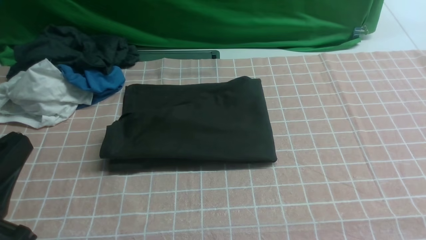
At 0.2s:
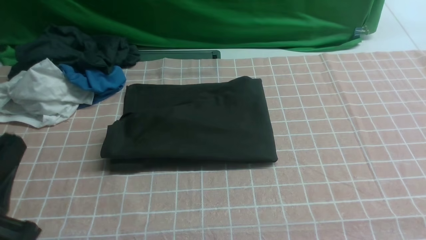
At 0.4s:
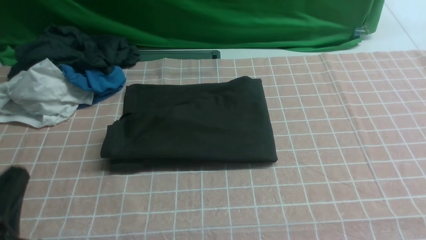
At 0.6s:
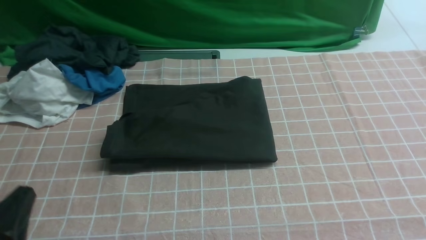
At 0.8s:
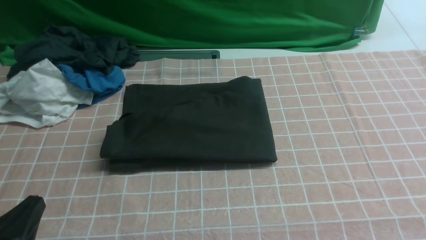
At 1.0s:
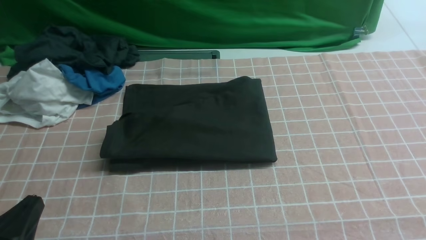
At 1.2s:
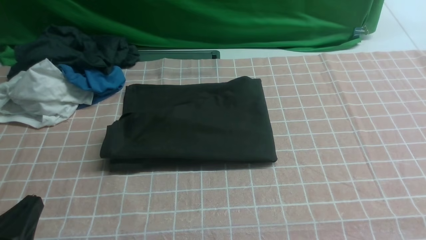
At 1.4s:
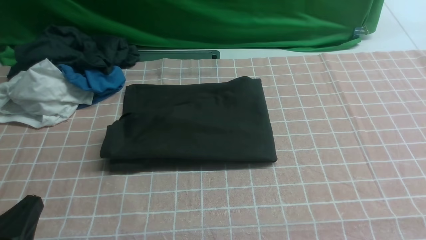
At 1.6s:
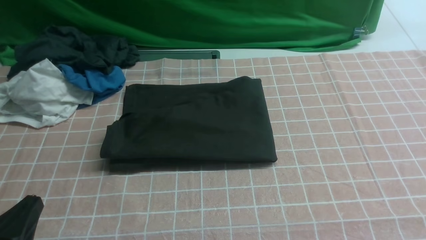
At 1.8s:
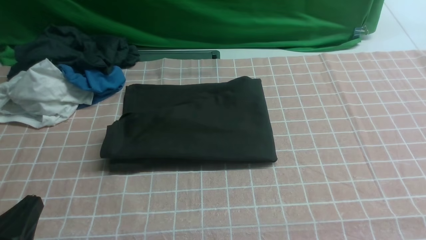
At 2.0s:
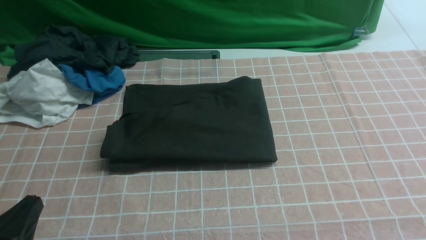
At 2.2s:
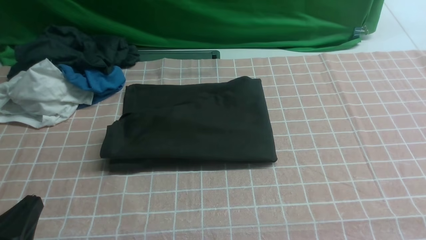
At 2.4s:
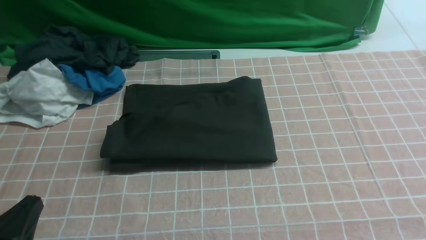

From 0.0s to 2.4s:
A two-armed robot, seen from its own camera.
From 0.0s to 1.2s: The left gripper moves downward, about 10 cm.
From 1.2s to 2.4s: Both grippers stay about where they are.

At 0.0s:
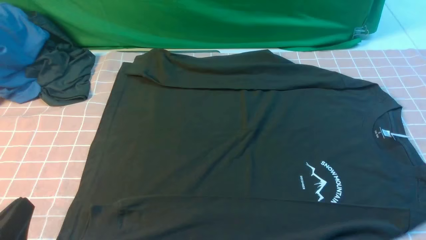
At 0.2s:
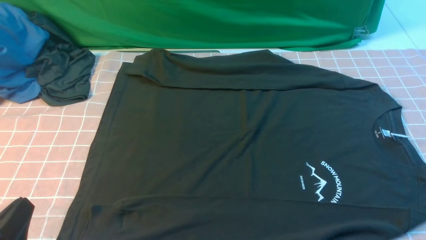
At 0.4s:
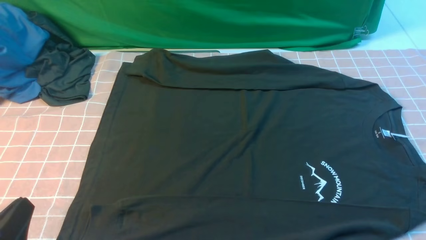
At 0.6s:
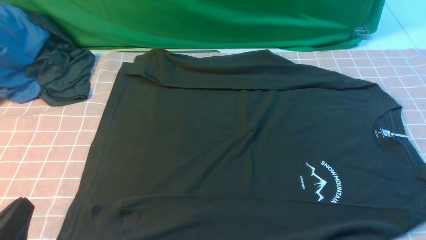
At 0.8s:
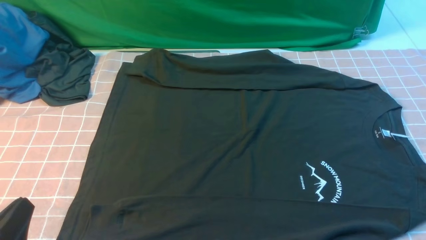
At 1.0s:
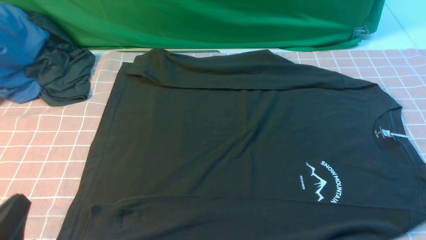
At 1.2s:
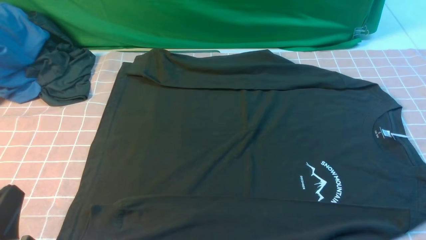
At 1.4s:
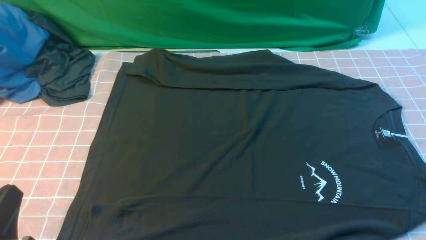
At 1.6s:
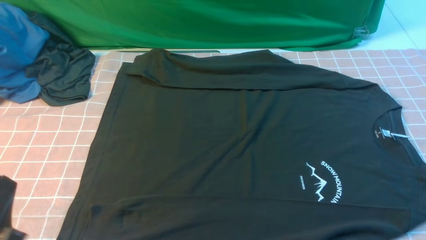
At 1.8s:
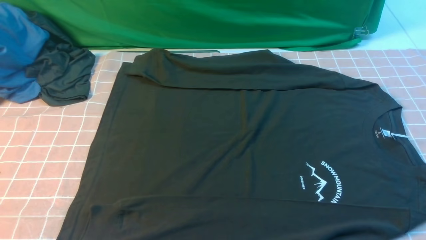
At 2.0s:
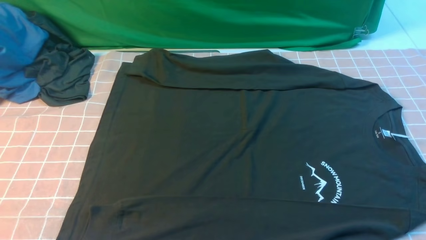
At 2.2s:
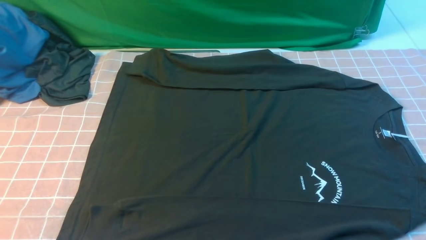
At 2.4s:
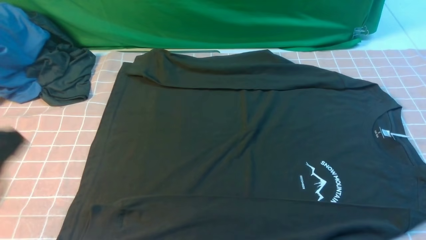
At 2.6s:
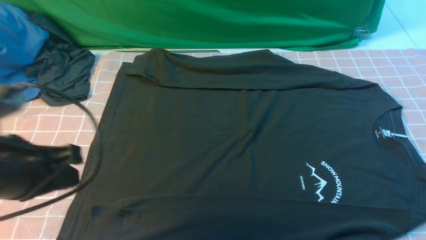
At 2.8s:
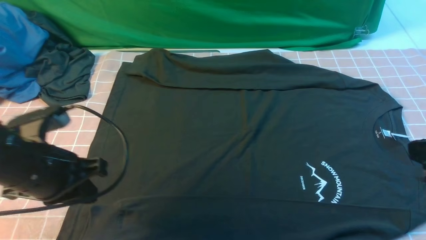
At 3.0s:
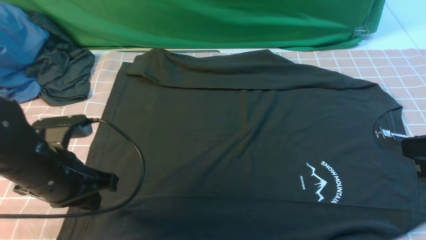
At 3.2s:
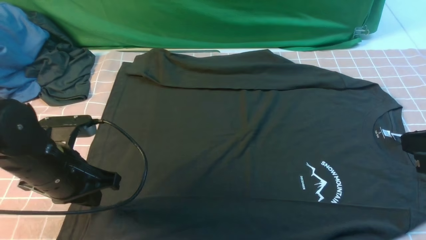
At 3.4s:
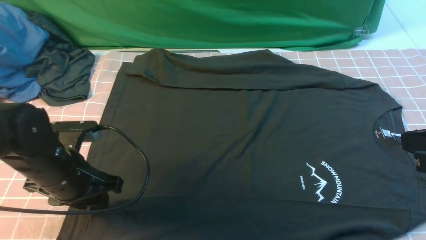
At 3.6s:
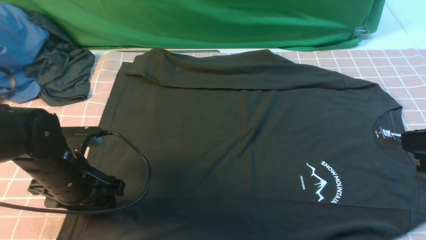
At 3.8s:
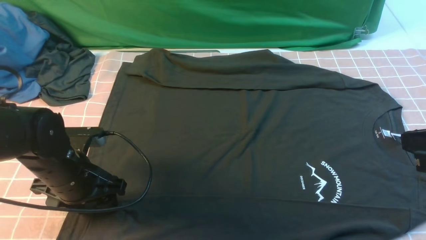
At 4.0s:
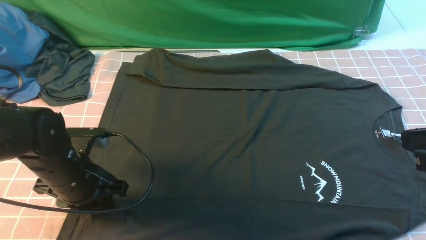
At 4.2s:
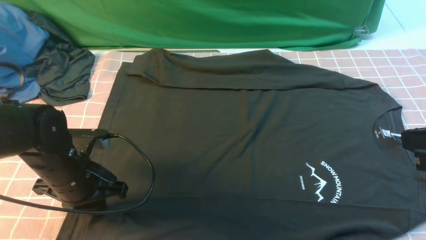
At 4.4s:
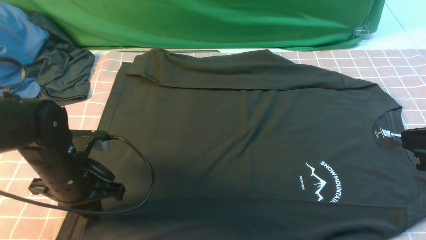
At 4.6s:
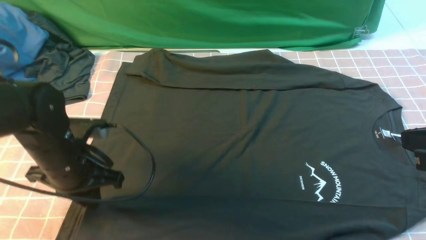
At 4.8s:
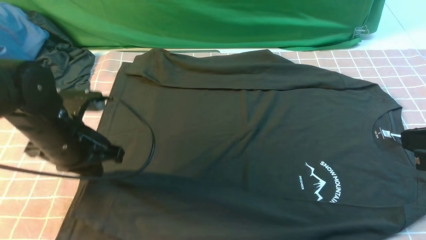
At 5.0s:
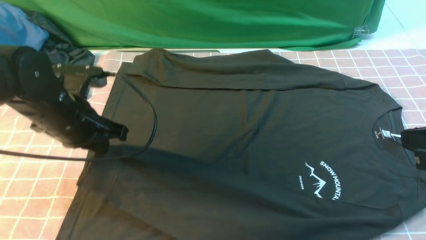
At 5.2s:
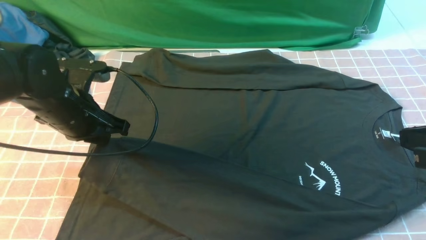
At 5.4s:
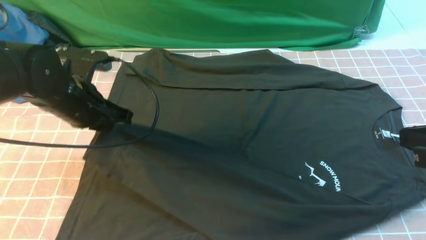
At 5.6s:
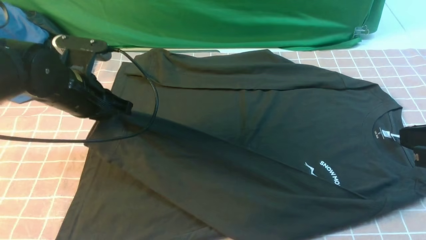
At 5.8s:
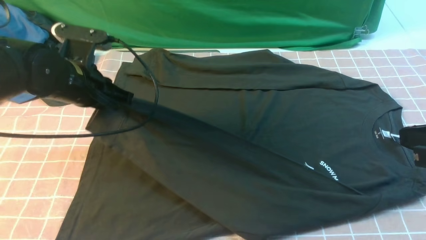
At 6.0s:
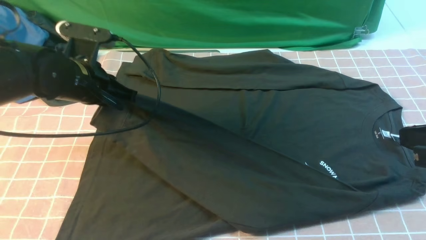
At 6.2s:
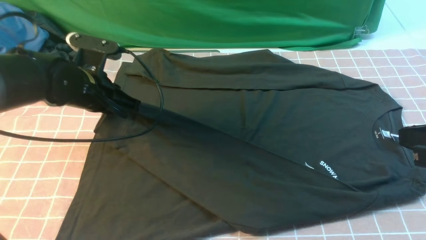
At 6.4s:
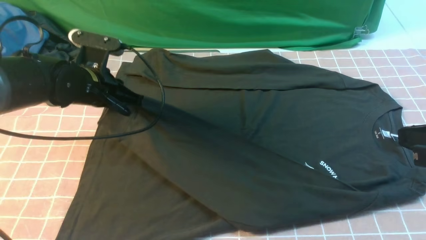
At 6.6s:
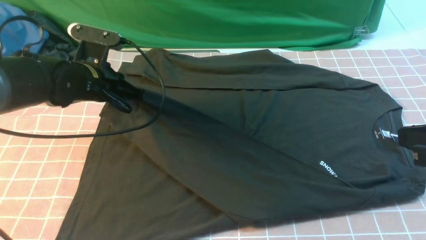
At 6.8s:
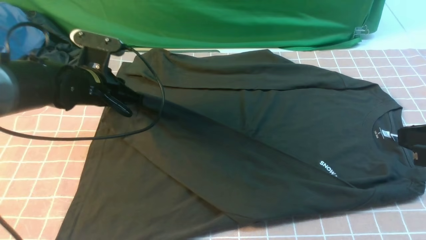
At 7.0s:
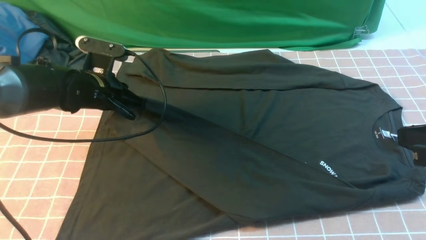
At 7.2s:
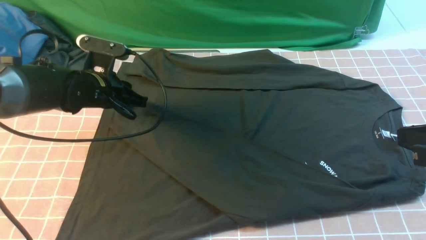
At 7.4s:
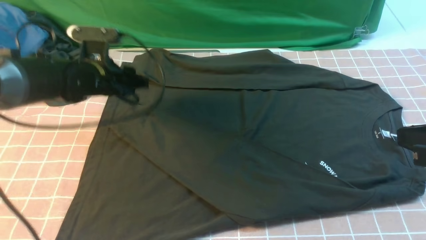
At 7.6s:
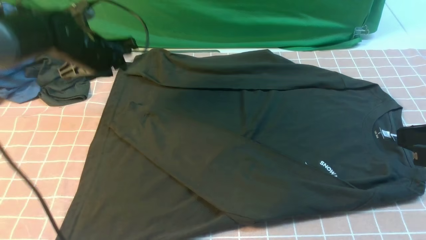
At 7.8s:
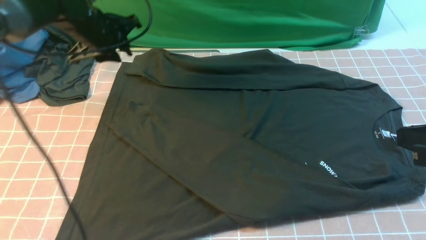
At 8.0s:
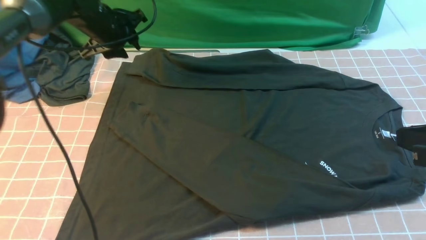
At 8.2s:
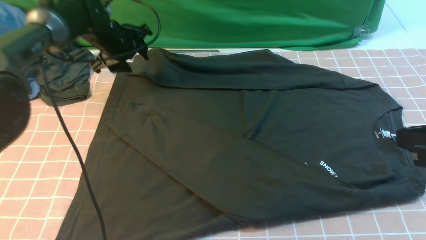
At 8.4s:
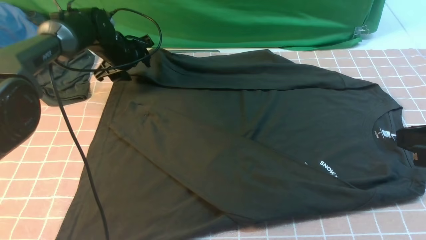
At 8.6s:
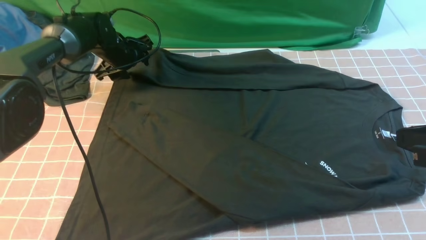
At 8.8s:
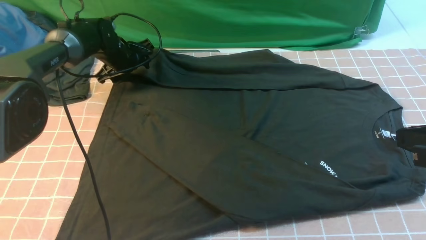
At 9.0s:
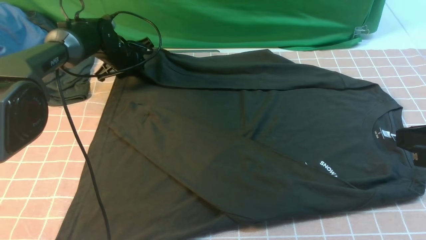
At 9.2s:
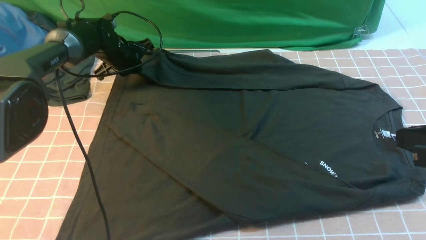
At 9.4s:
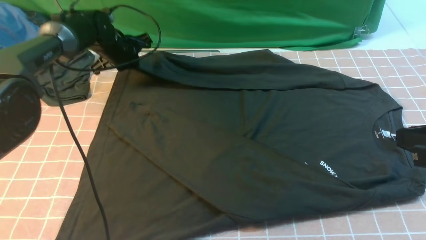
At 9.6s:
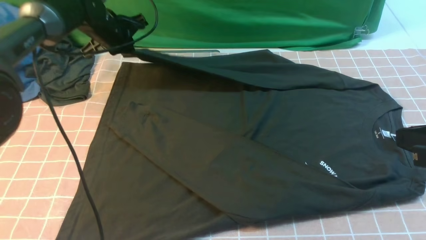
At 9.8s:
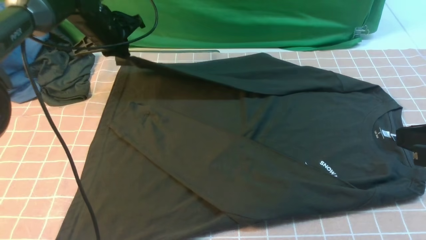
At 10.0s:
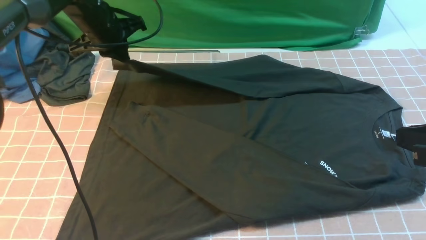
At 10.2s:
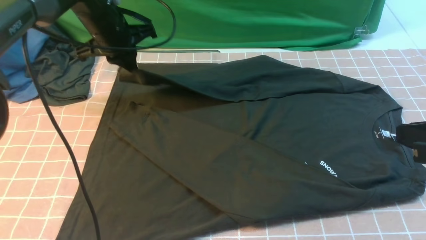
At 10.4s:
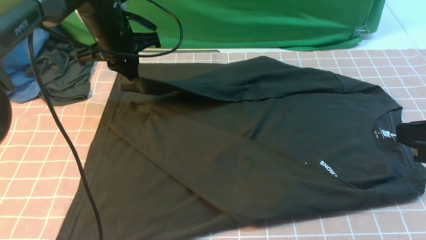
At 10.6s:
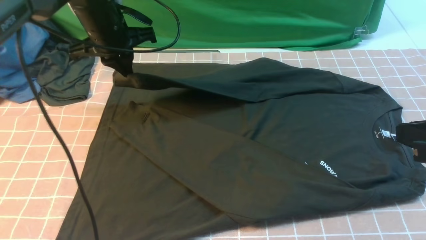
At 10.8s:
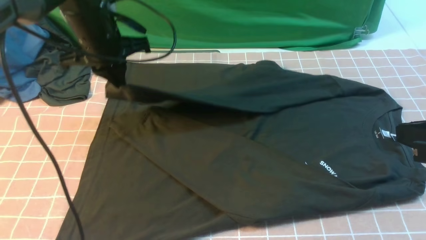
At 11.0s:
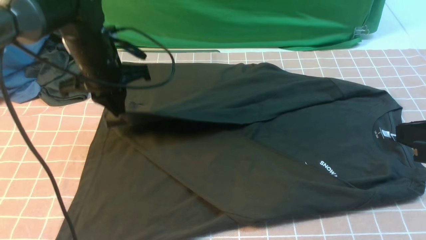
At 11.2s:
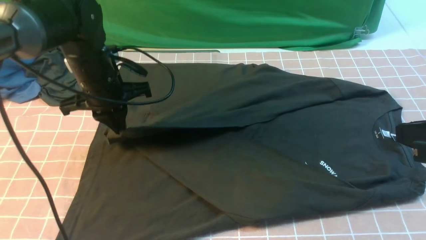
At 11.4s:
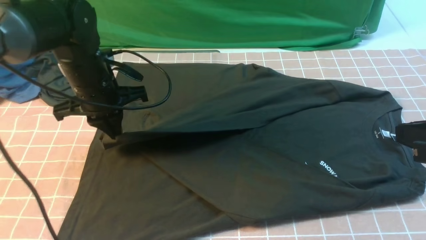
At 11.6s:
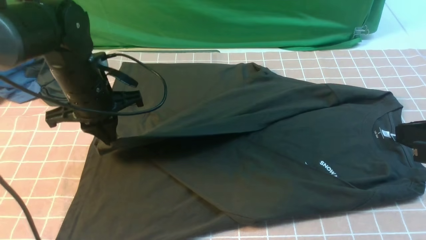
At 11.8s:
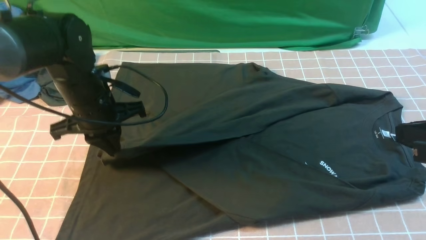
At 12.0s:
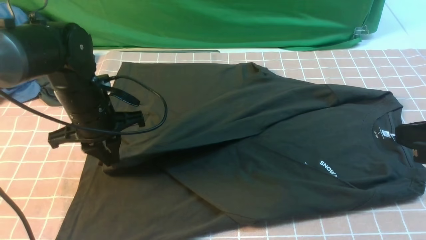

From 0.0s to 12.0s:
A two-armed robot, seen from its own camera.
Step, from 0.0s to 4.6s: use the left arm to clamp the cuff closest to it.
Step, from 4.8s to 7.4s: use the left arm to drag and place the cuff at the centered position on the left edge of the fabric.
Step, from 7.6s to 9.6s: use the left arm to clamp the cuff farthest from it.
From 1.6s to 3.0s: The right gripper moves upward and forward, roughly 15 cm, and closes up. The left gripper moves forward, about 15 cm.
From 3.0s to 4.4s: The left gripper moves about 5 cm, and opens and closes again.
From 4.4s to 6.0s: The left gripper heads forward and upward, covering some 10 cm.
From 6.0s to 7.6s: The left gripper moves forward, approximately 10 cm, and opens up.
From 7.6s to 9.0s: The left gripper heads forward and downward, covering some 15 cm, and opens, then closes once more.
From 9.0s to 10.4s: The left gripper shifts about 15 cm upward and backward, and closes its fingers.
From 10.4s to 12.0s: The left gripper goes about 15 cm backward and downward.

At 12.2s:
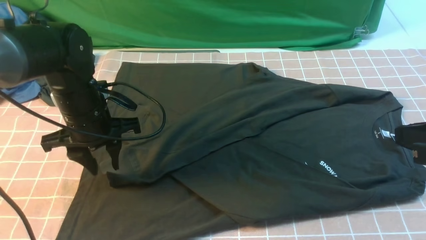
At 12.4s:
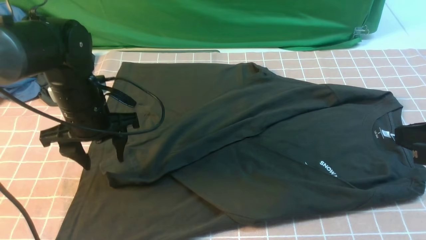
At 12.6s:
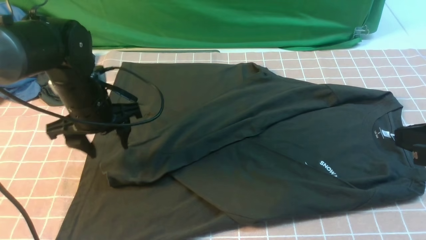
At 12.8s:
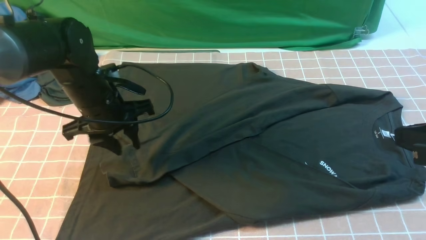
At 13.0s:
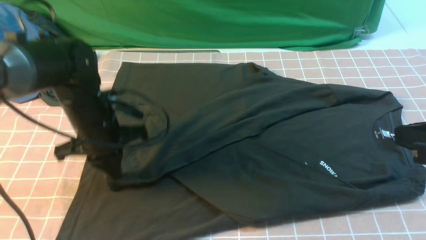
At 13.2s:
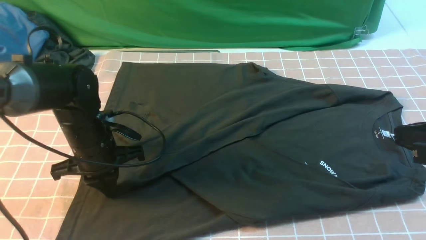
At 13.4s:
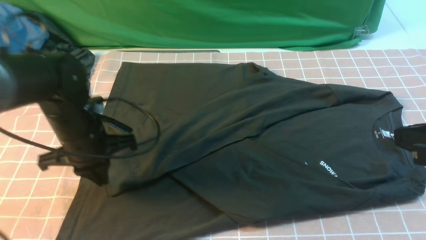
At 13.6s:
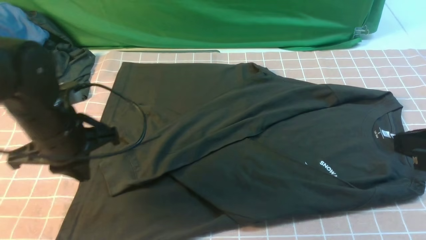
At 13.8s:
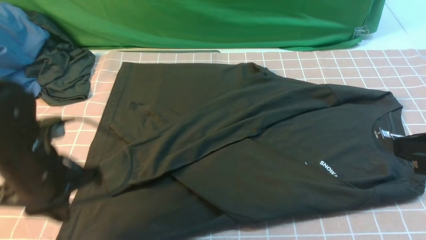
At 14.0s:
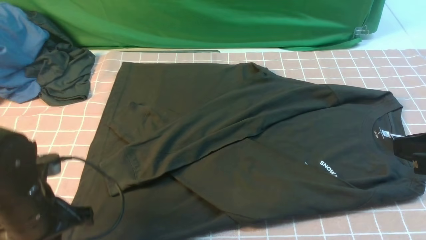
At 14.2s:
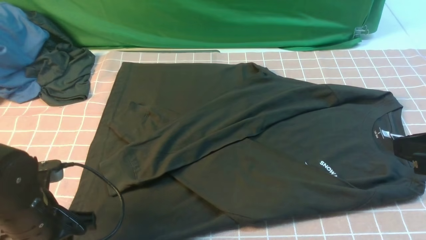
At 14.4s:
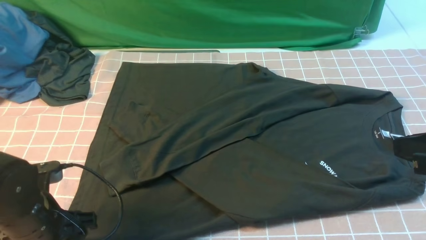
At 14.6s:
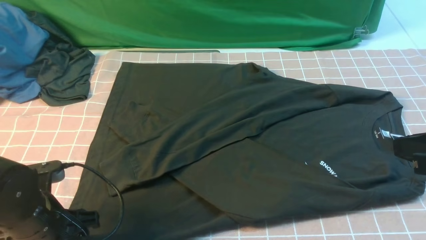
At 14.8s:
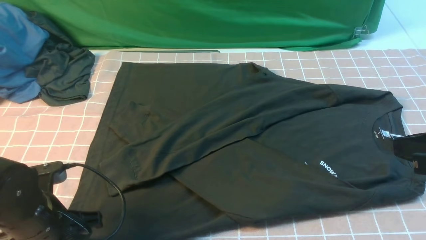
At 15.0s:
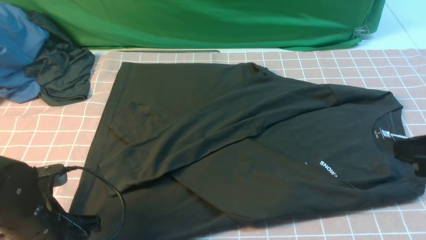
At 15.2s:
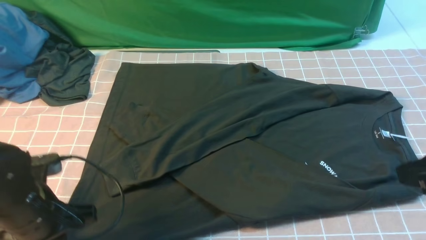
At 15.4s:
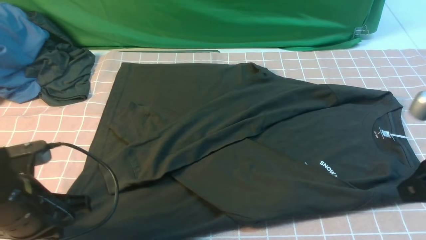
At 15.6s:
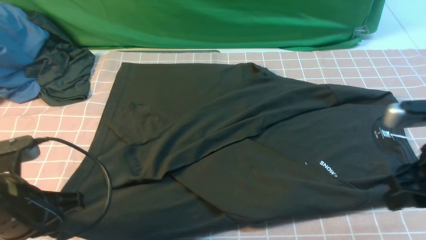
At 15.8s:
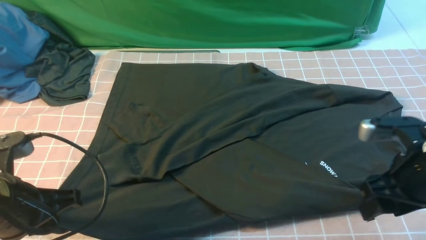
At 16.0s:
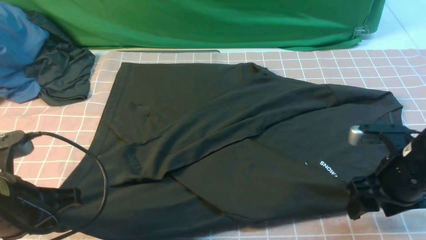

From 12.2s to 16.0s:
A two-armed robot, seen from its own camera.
From 12.2s to 13.4s: The left gripper closes up.
From 13.4s to 14.8s: The left gripper goes approximately 10 cm backward, and opens up.
From 14.8s to 16.0s: The right gripper goes roughly 15 cm downward and forward, and opens; the left gripper is displaced upward by about 10 cm, and closes.
